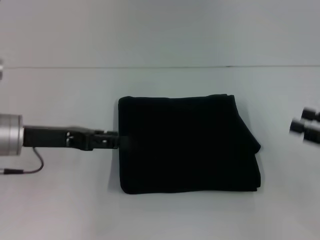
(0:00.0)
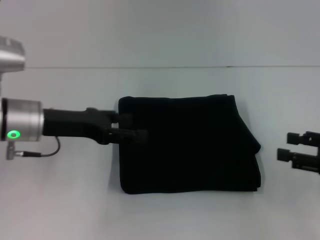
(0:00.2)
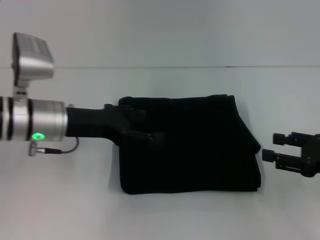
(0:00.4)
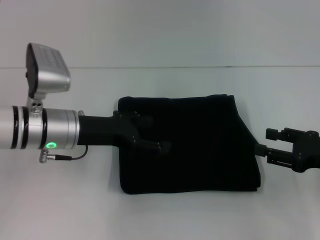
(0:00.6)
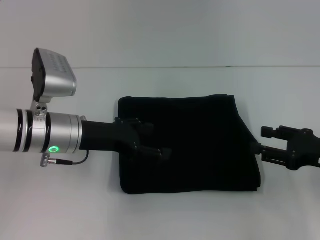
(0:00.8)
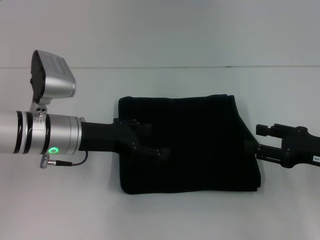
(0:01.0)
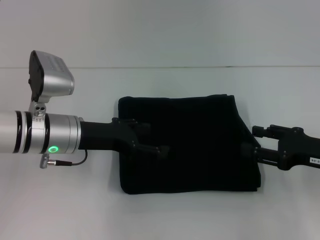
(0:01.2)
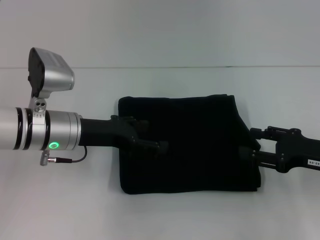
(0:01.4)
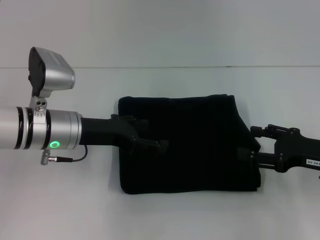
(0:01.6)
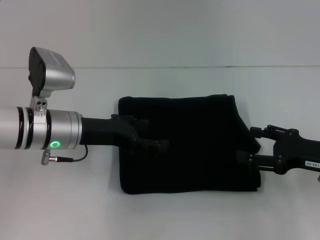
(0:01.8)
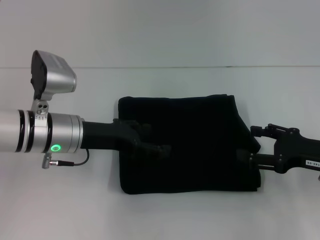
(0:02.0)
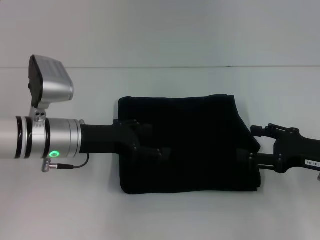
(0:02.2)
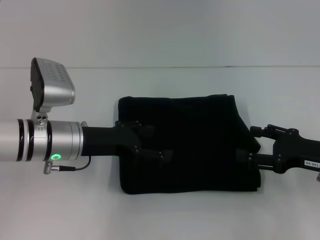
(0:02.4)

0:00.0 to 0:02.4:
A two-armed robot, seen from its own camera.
0:00.0 to 0:01.2: The right gripper travels to the left by roughly 5 cm; the left gripper goes some 5 cm to the right, and opens.
0:01.2 to 0:02.4: The two grippers keep their place.

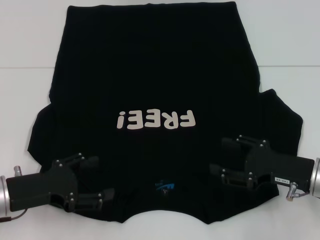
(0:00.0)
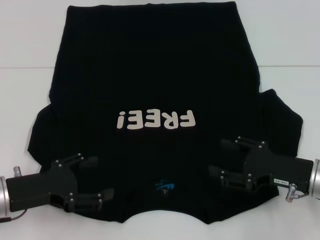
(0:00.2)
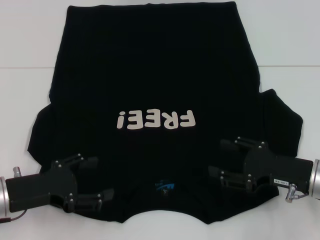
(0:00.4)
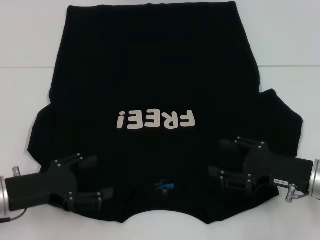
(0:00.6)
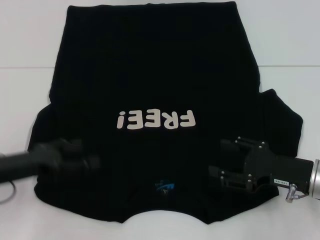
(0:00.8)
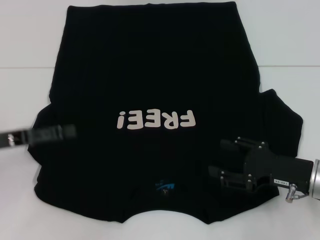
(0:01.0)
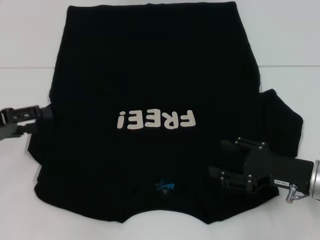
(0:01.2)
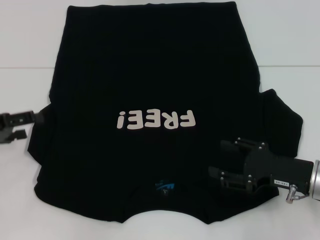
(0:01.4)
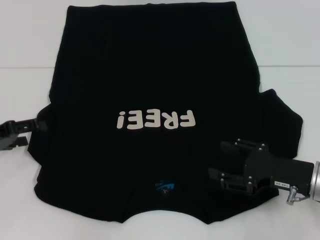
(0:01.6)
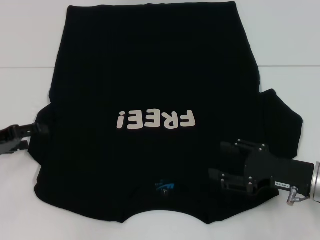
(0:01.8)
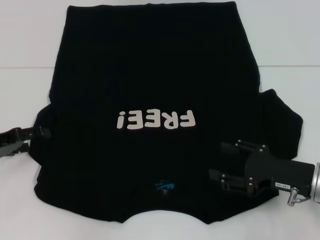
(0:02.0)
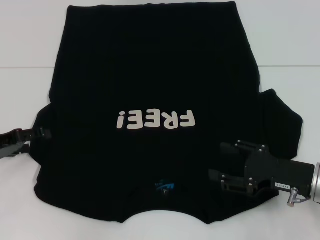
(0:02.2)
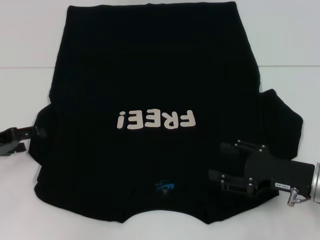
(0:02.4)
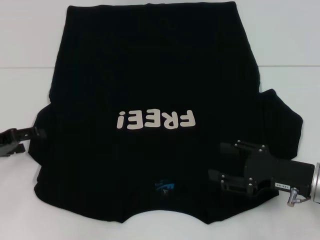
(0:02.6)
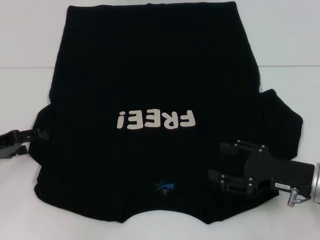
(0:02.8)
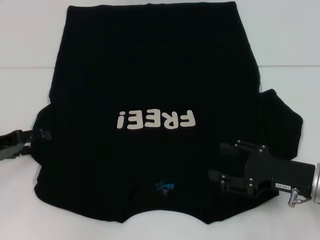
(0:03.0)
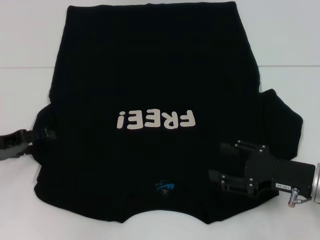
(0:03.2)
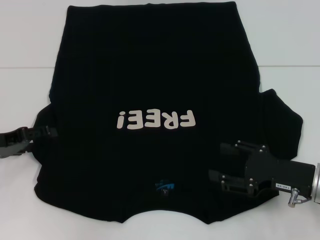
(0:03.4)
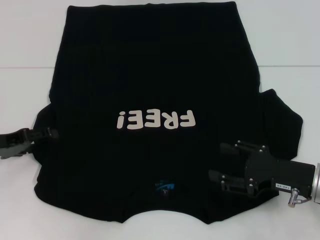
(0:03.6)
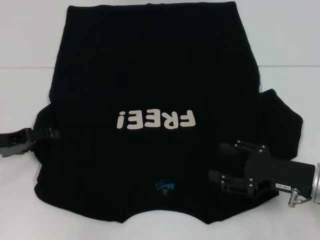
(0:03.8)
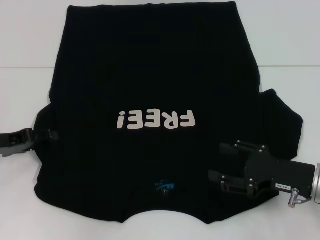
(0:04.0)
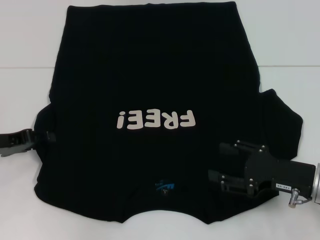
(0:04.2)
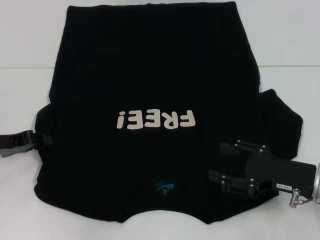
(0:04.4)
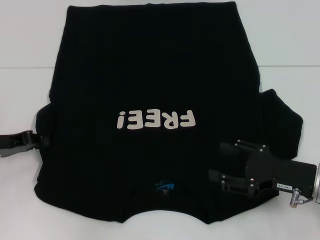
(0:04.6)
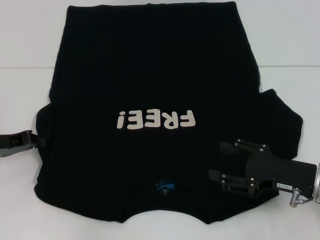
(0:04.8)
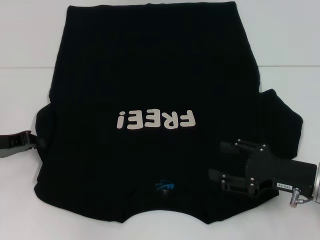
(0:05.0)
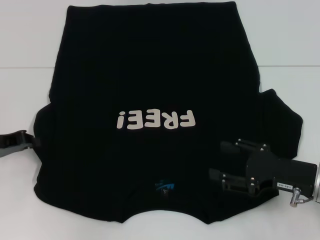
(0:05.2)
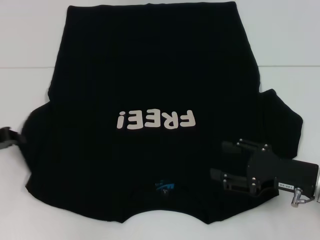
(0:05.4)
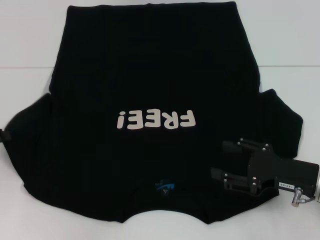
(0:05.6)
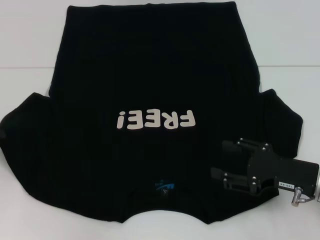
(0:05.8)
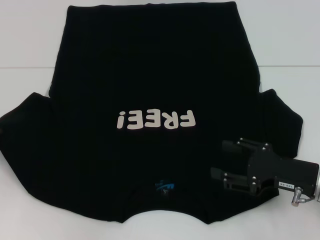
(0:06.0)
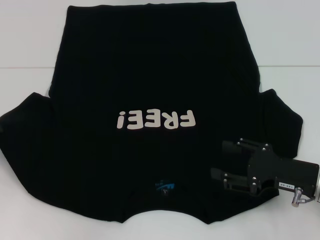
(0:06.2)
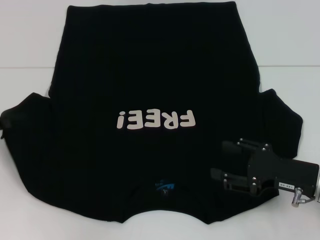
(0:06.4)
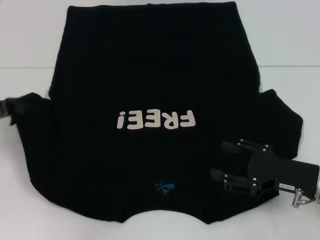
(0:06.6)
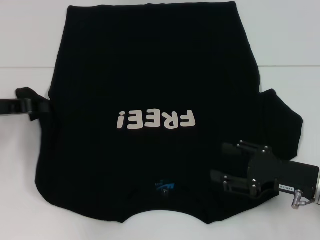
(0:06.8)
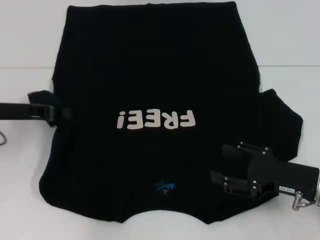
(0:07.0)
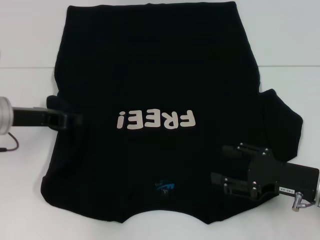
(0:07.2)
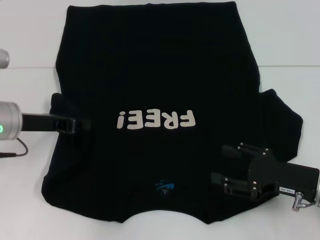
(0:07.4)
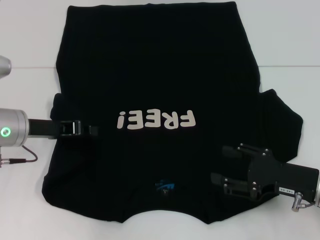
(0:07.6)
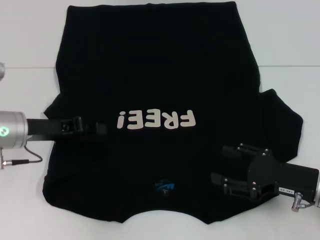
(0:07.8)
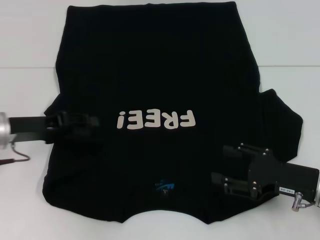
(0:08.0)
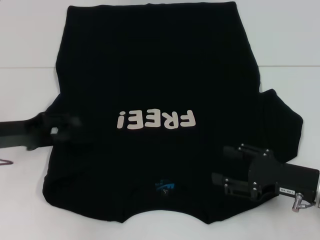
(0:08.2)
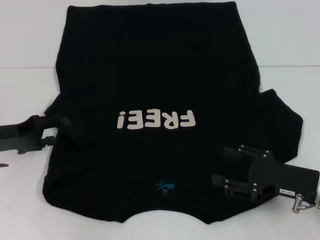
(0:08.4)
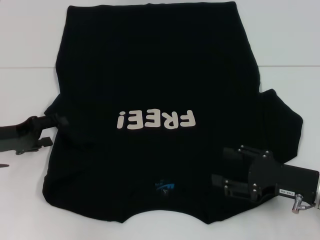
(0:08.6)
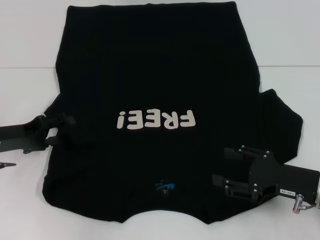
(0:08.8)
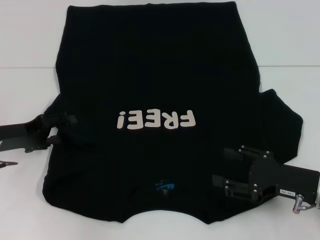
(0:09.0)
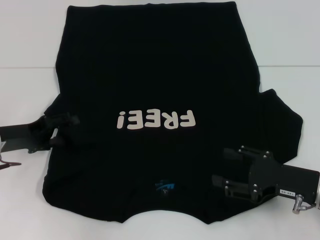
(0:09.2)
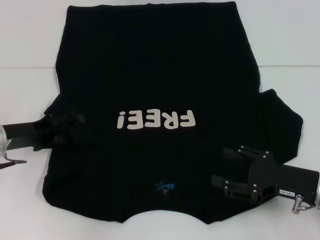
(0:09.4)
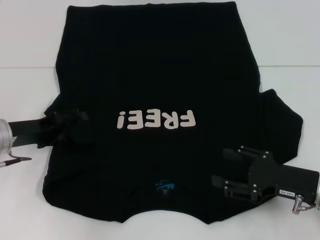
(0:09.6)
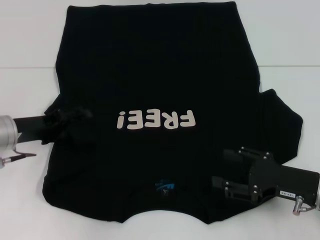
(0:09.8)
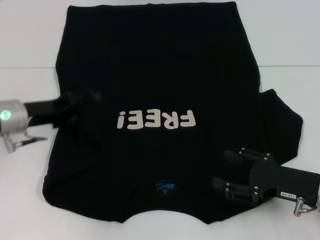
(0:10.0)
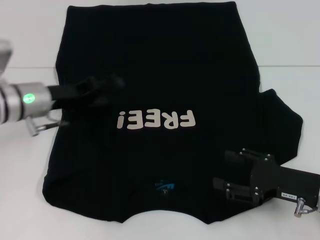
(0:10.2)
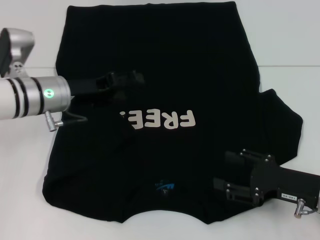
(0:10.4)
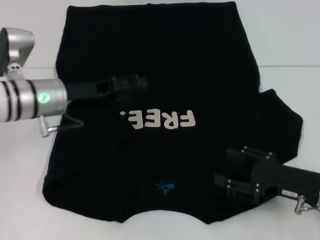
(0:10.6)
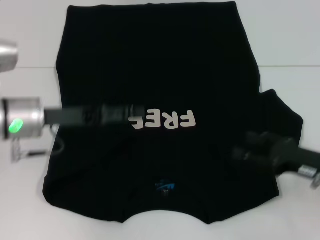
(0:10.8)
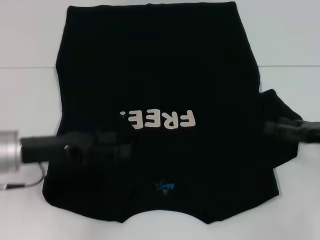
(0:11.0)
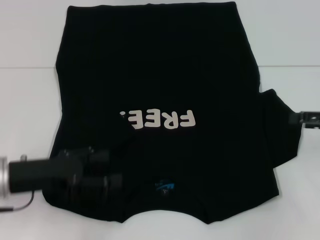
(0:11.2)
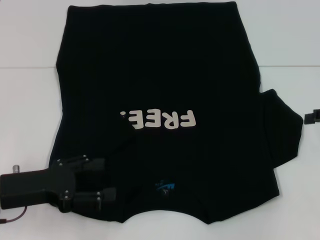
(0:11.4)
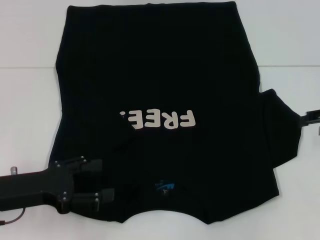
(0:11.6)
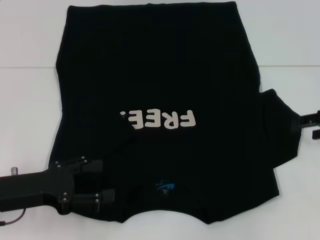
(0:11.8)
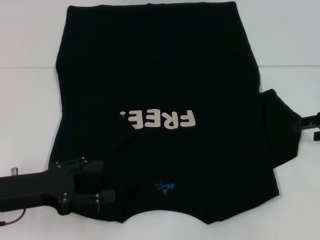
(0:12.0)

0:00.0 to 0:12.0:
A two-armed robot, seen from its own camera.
Step, 0:00.0 to 0:10.2: Fold the bottom left sleeve with your left hand.
0:00.0 to 0:01.6: The left gripper shifts approximately 10 cm to the left and forward.
0:01.6 to 0:03.0: The grippers make only small movements.
0:03.0 to 0:04.4: The left gripper closes up.
0:04.4 to 0:06.0: The left gripper travels to the left by approximately 5 cm, and closes.
0:06.0 to 0:07.6: The left gripper moves to the right, some 15 cm.
0:07.6 to 0:09.0: The left gripper heads to the left, covering roughly 5 cm, and opens up.
0:09.0 to 0:10.4: The left gripper moves to the right and forward, some 10 cm.
0:10.4 to 0:12.0: The left gripper shifts roughly 15 cm backward and to the left. Meanwhile the right gripper shifts roughly 15 cm forward, to the right and upward.

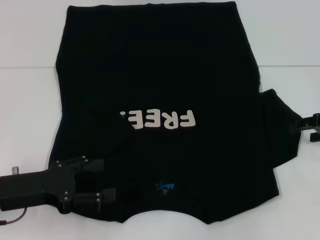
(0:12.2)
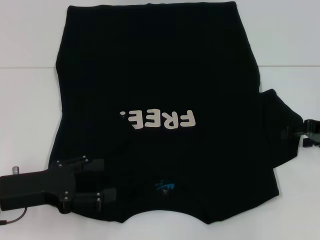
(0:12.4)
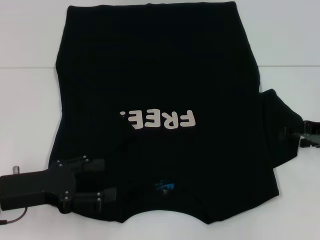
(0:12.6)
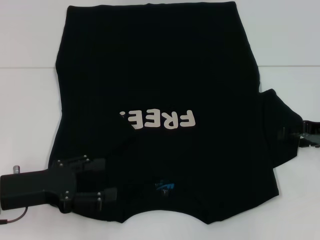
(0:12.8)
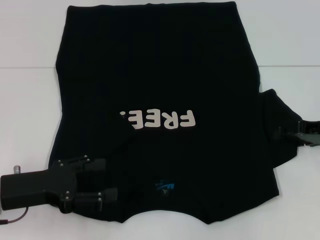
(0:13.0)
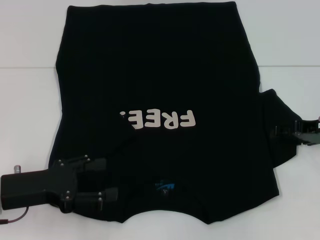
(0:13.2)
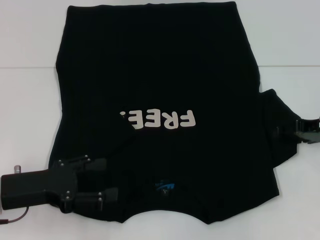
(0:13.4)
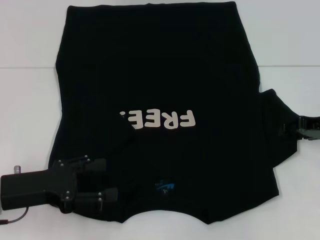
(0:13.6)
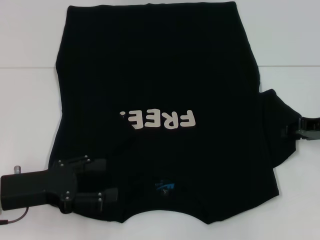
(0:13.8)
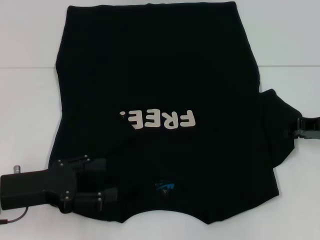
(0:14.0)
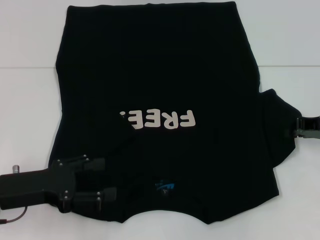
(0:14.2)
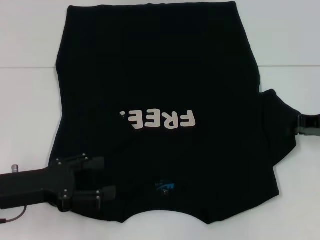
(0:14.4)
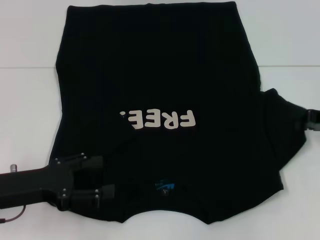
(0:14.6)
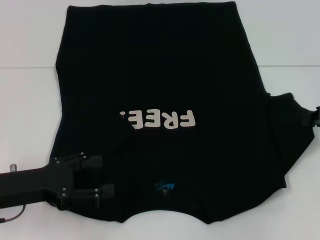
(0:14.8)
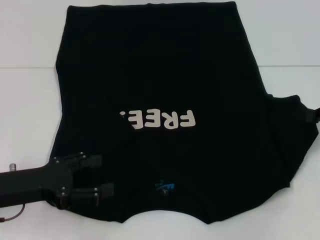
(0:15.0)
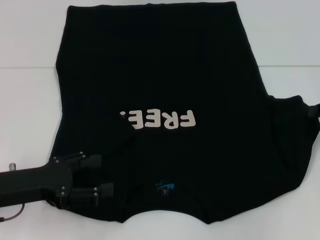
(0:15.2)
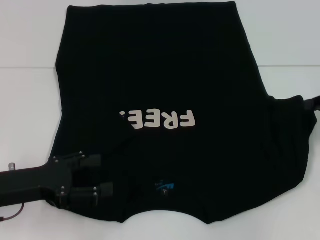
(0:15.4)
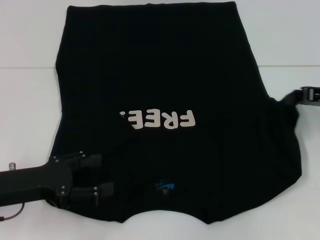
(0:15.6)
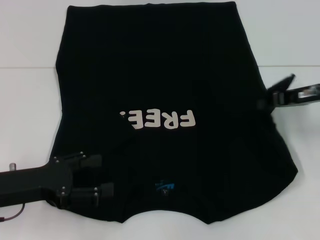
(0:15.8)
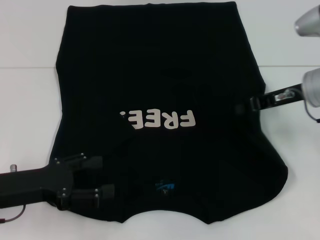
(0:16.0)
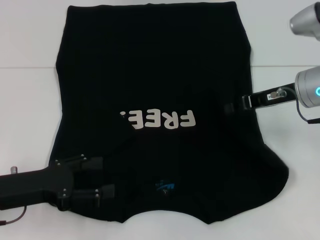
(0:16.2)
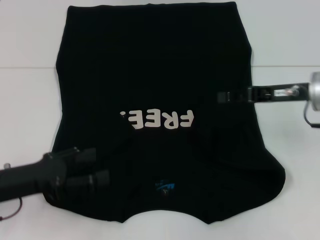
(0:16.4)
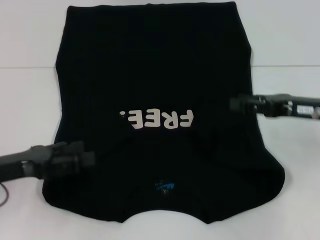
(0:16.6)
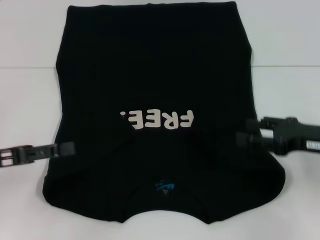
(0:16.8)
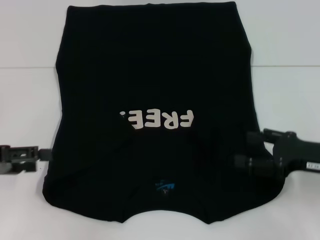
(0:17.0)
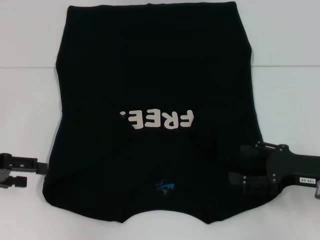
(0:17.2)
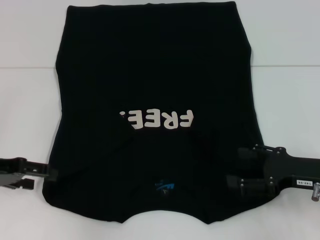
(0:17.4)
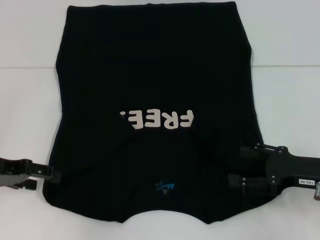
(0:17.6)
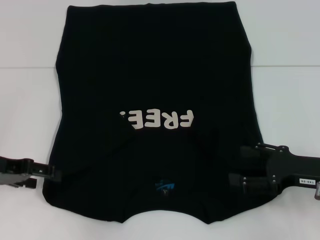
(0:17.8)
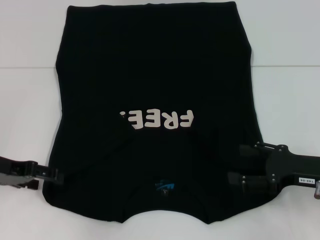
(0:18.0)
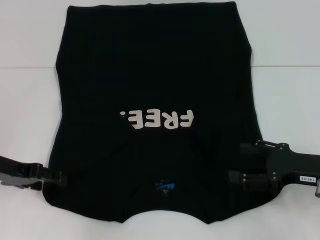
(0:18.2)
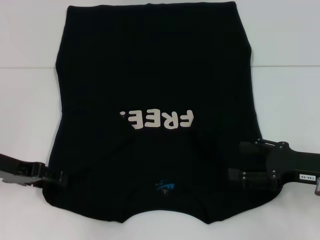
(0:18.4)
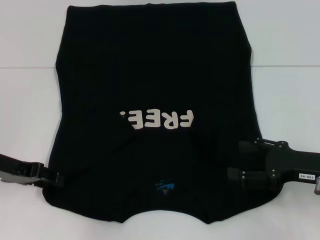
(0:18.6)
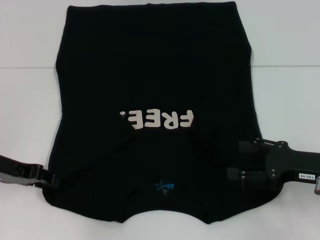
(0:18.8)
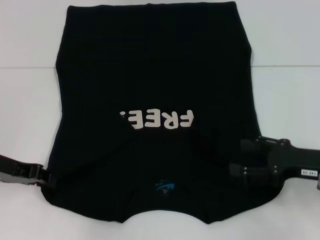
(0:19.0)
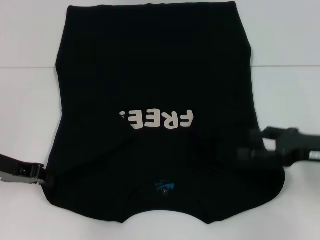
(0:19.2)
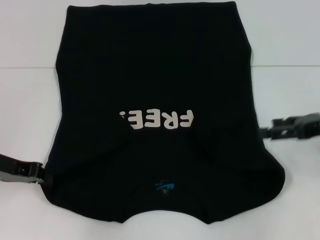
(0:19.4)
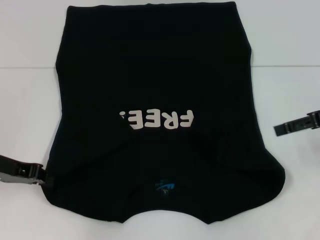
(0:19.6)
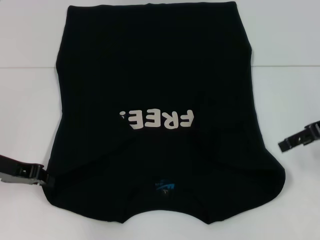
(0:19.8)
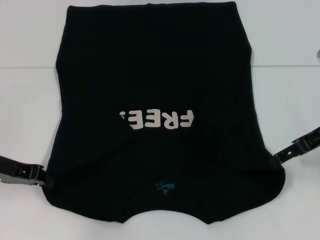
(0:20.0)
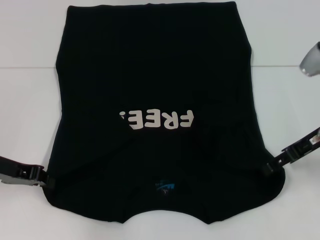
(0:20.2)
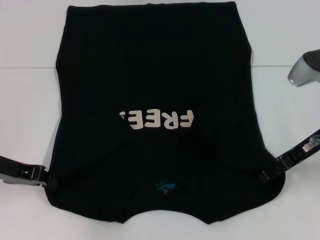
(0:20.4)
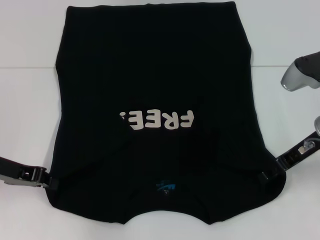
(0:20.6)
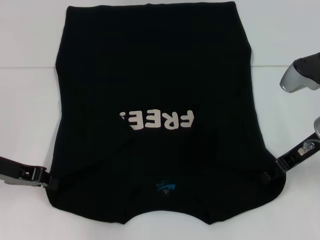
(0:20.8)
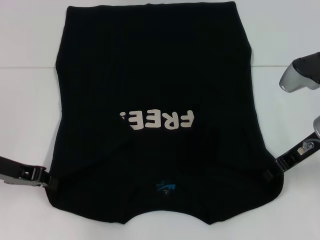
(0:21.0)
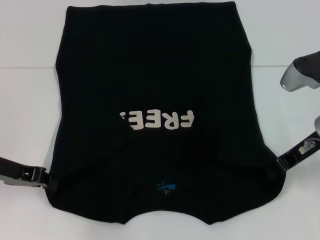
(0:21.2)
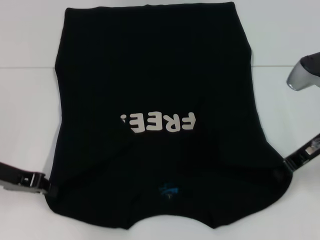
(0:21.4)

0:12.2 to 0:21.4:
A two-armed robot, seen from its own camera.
Step, 0:12.2 to 0:16.4: Fold the bottom right sleeve with your right hand.
Step, 0:16.6 to 0:19.6: Grab the bottom left corner with your left hand.
Step, 0:19.8 to 0:21.0: Grab the bottom right corner with your right hand.
0:12.2 to 0:13.8: The right gripper closes.
0:13.8 to 0:15.2: The right gripper closes its fingers.
0:15.2 to 0:16.8: The left gripper ends up roughly 5 cm from where it was; the right gripper is displaced to the left by about 5 cm, and opens its fingers.
0:16.8 to 0:18.4: The left gripper goes approximately 5 cm forward. Meanwhile the right gripper opens.
0:18.4 to 0:19.8: The left gripper closes. The right gripper is displaced upward and forward by some 15 cm.
0:19.8 to 0:21.4: The right gripper moves about 5 cm, and closes its fingers.
